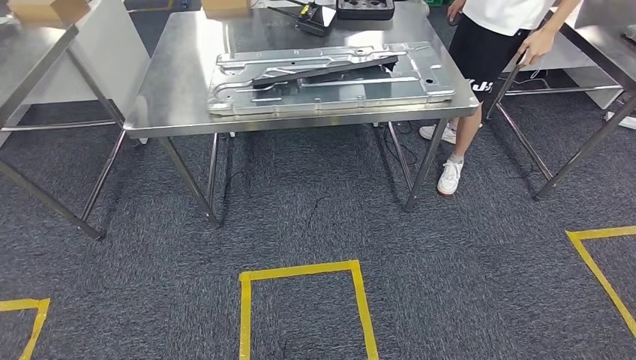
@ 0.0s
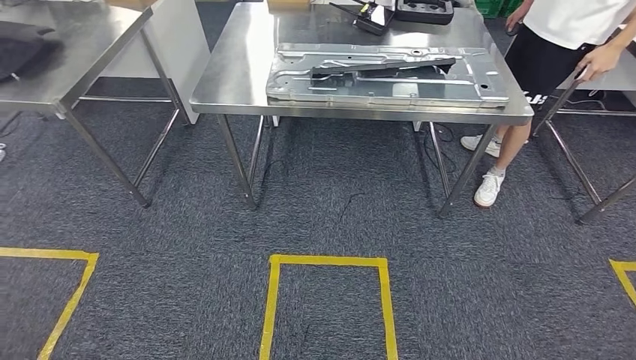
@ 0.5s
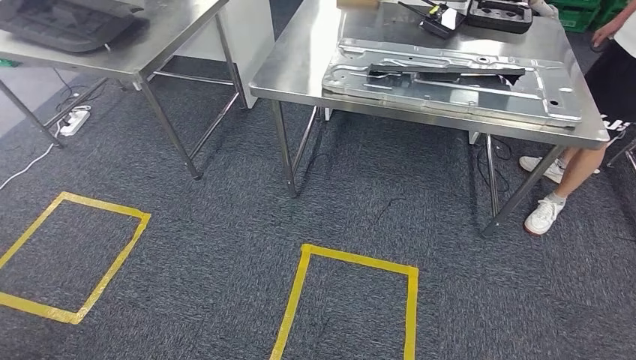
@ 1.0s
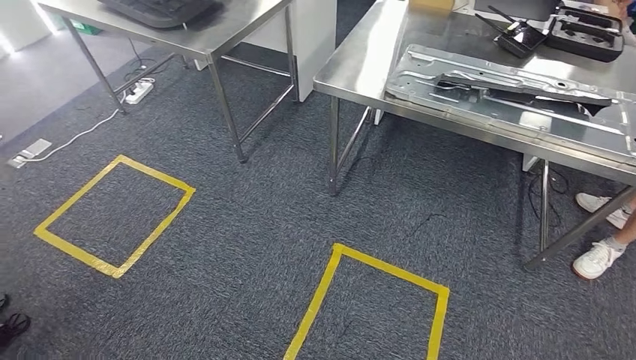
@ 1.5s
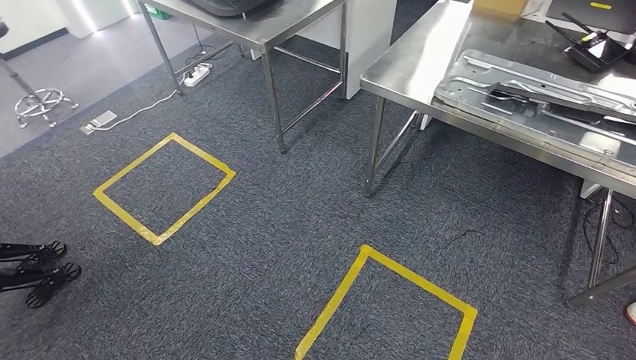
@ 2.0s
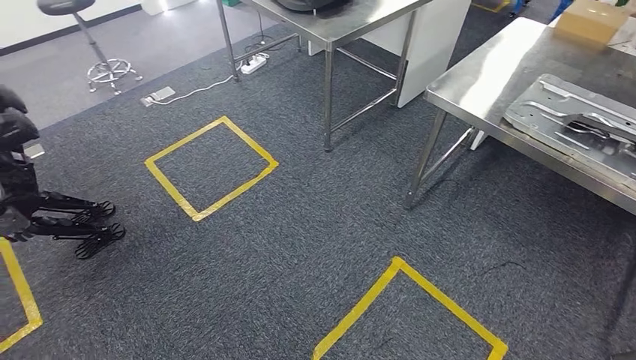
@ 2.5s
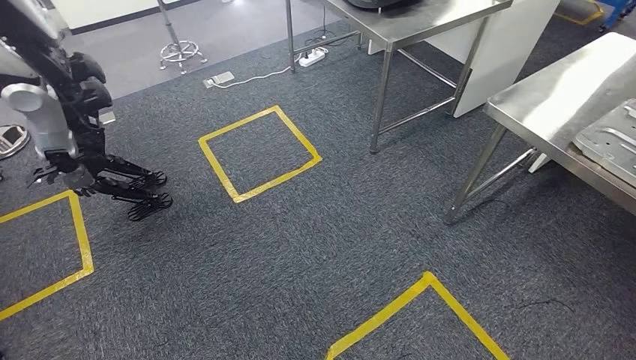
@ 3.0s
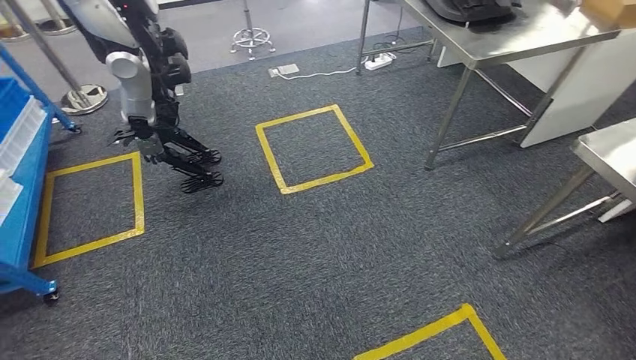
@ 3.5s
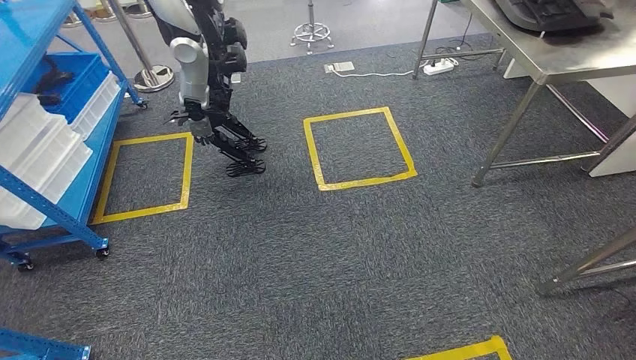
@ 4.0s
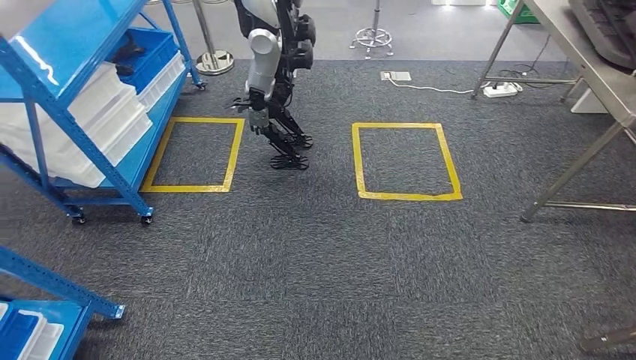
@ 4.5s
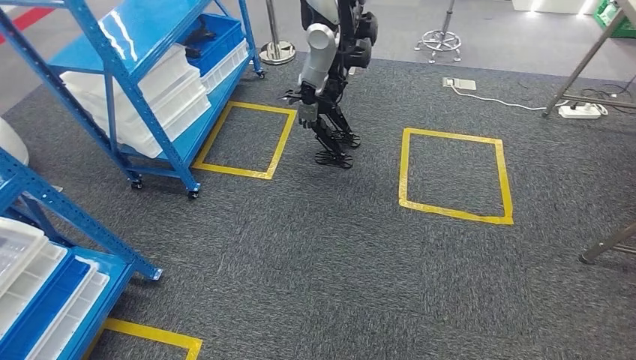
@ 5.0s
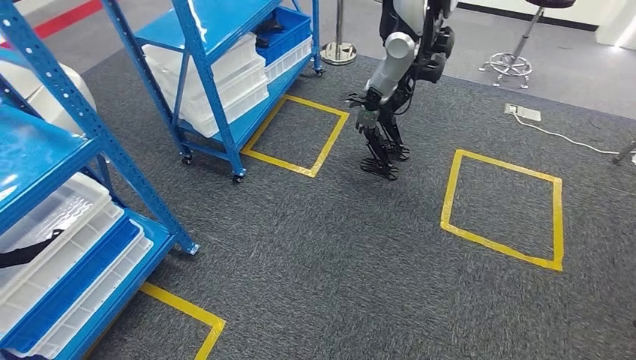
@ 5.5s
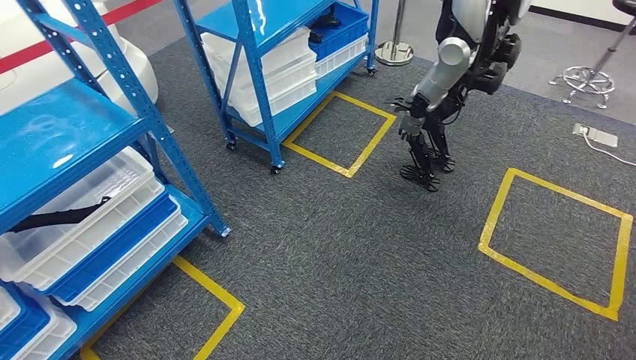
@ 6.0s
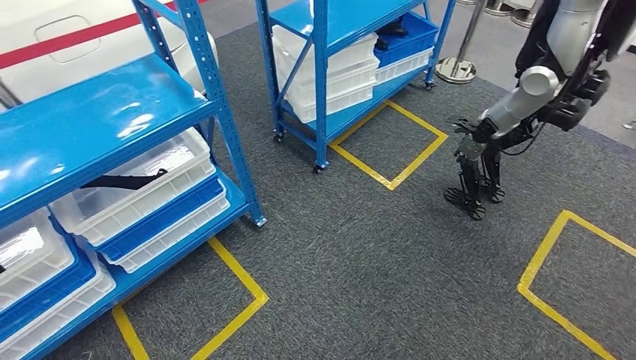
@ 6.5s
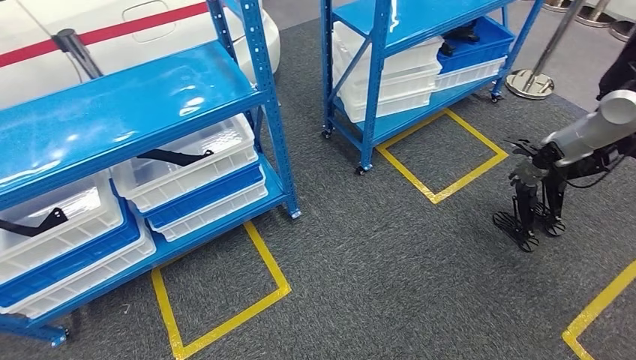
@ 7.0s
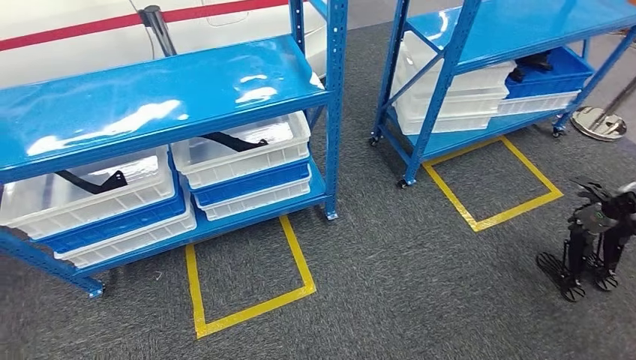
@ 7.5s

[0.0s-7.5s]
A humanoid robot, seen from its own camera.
Step, 0.0s to 7.5s: Move to the initial position of the shelf.
